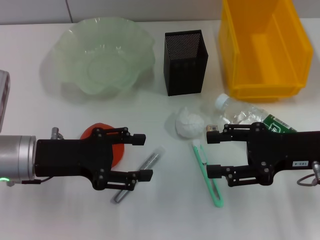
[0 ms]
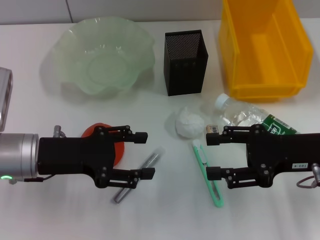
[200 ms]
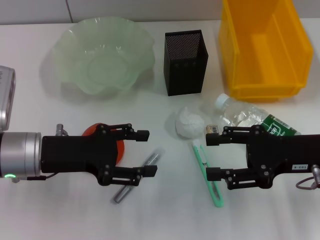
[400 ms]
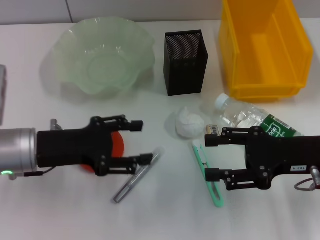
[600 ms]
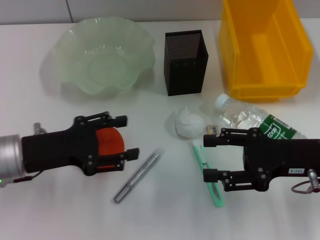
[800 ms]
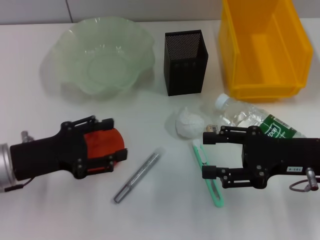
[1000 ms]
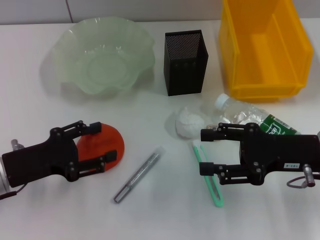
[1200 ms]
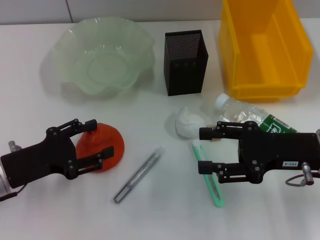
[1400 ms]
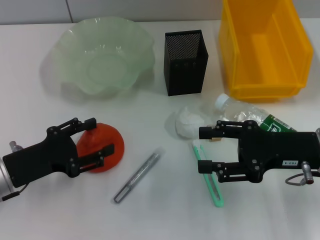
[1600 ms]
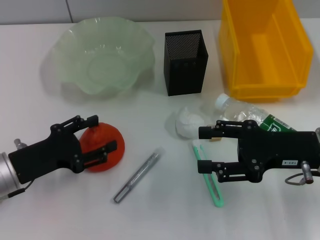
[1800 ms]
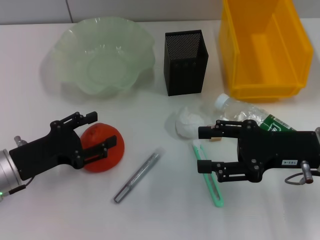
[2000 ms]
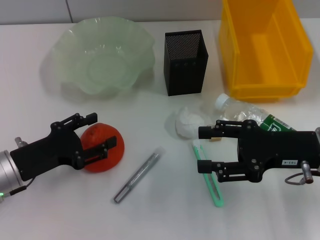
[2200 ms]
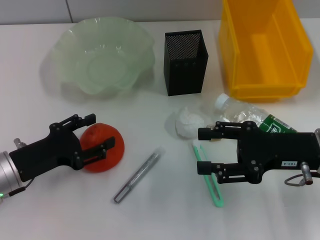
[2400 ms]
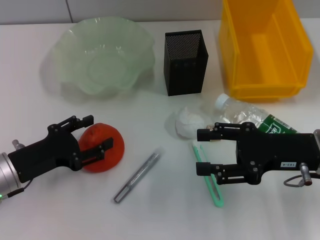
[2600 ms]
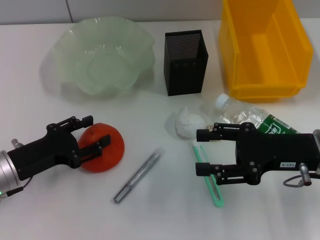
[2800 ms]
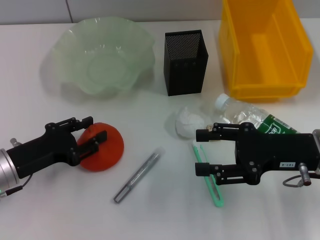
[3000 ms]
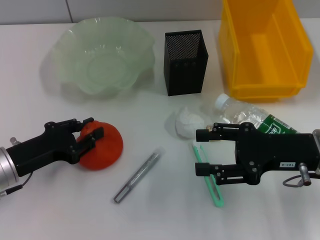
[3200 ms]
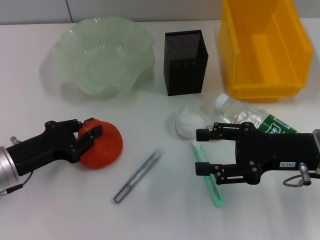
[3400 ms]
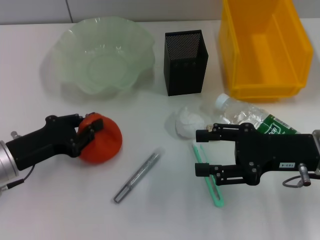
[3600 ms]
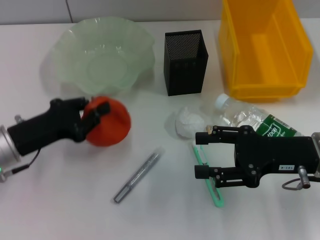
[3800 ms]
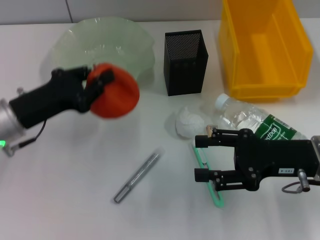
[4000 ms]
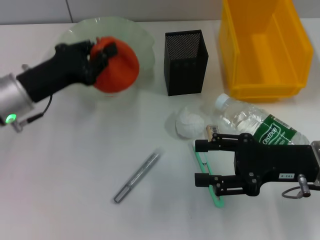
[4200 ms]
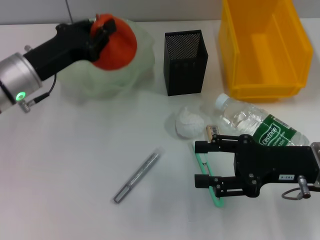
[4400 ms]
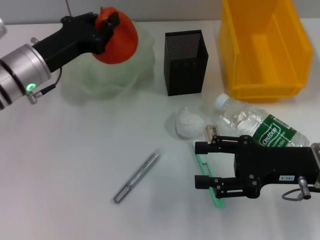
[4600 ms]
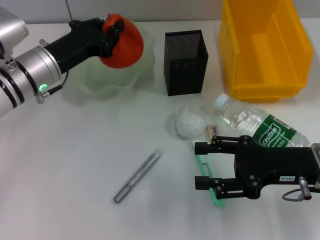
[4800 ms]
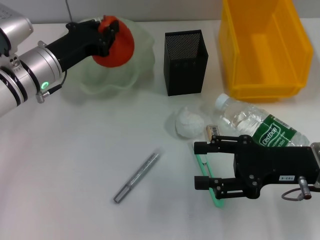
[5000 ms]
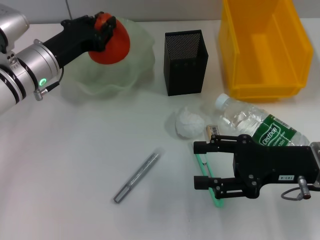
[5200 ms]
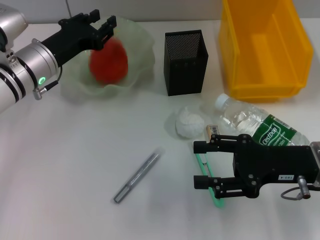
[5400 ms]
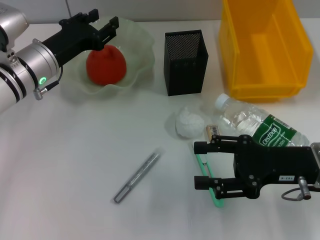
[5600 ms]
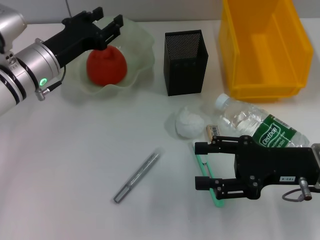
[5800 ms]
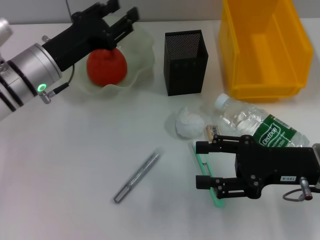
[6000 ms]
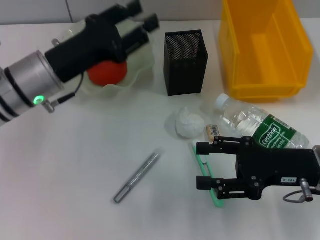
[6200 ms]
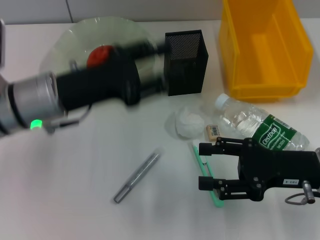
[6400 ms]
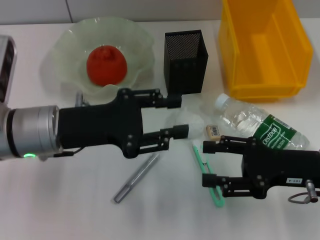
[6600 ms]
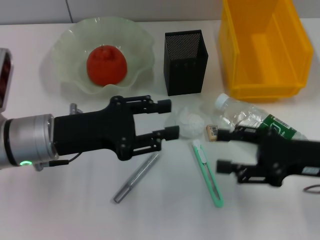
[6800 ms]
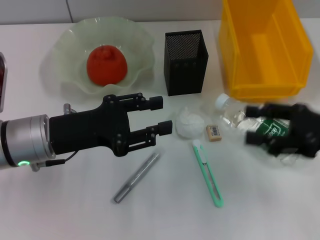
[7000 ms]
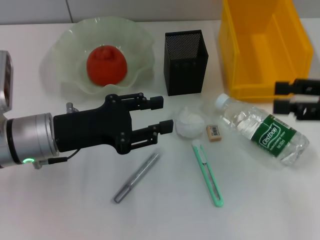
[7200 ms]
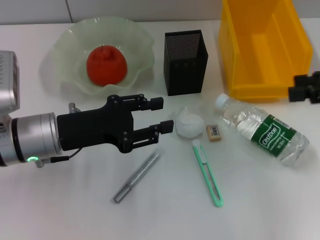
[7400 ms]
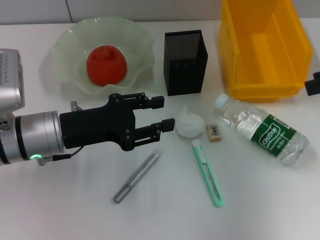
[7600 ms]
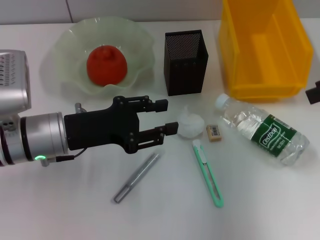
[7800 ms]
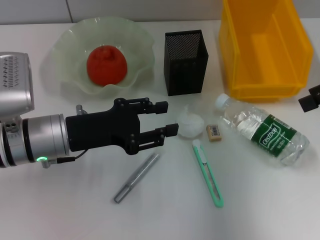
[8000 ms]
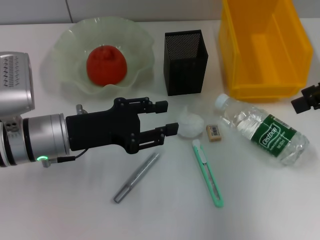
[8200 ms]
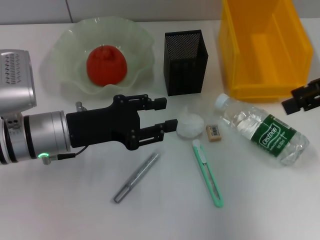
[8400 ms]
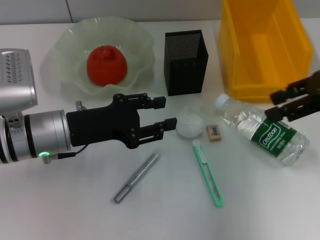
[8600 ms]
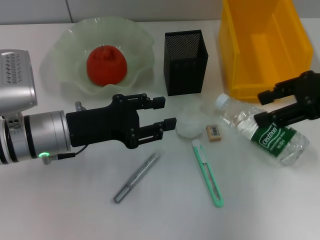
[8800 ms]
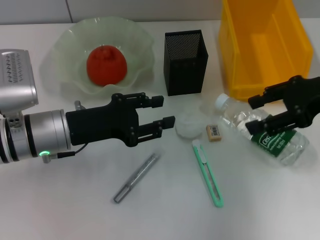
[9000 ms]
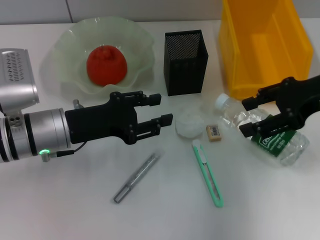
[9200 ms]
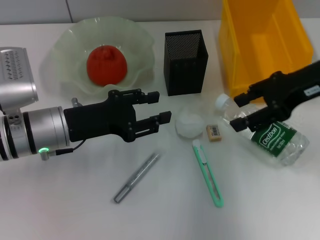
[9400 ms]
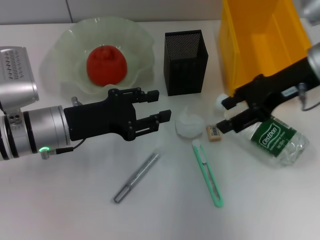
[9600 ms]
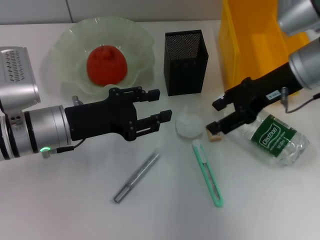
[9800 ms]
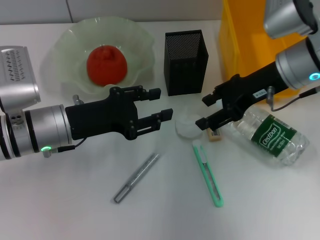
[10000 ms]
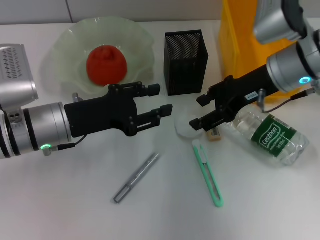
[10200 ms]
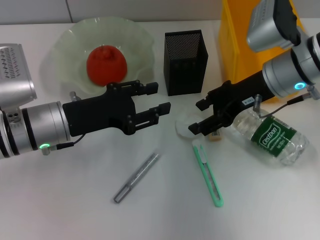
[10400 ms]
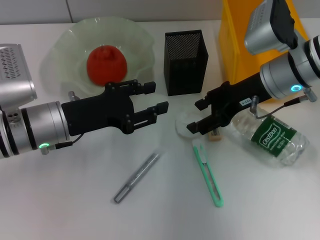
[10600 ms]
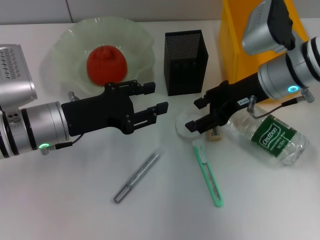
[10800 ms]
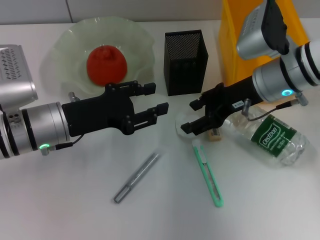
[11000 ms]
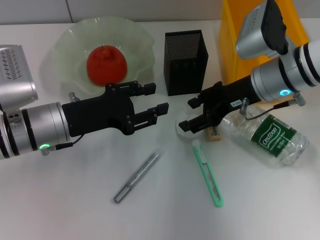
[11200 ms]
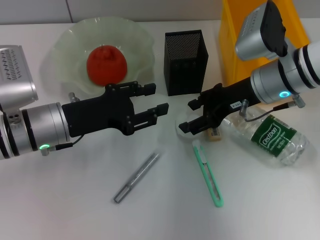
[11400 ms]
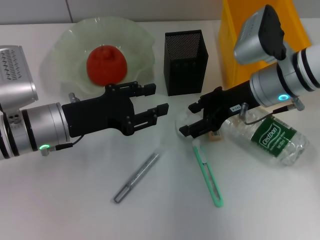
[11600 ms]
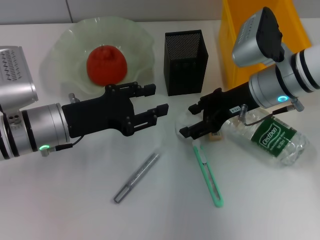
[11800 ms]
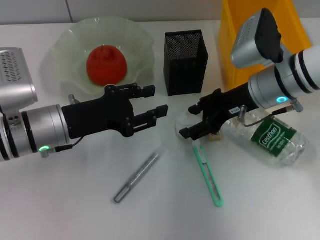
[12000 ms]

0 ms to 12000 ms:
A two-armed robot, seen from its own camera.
Step, 0 ms to 3400 ms: Grab the orange with the left hand.
Step, 3600 ms to 5600 ms: Place the orange into the fruit bowl with the left hand.
0 ms to 1600 ms: The left gripper moves about 5 cm.
1600 ms to 3000 ms: The grippers stay close to where they were, moving slightly.
3000 ms to 4400 ms: The left gripper is displaced forward and upward by about 10 cm, and closes.
4400 ms to 6000 ms: The left gripper opens.
6000 ms to 7600 ms: The left gripper heads backward, covering roughly 5 cm, while the right gripper moves upward and to the right, roughly 20 cm.
7600 ms to 9000 ms: The right gripper travels to the left and downward by roughly 10 cm.
9000 ms to 10400 ms: The right gripper moves to the left and downward, roughly 10 cm.
10400 ms to 12000 ms: The grippers make only small movements.

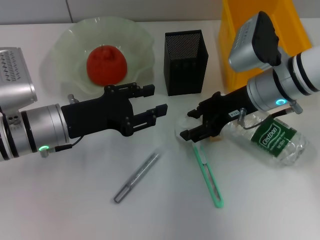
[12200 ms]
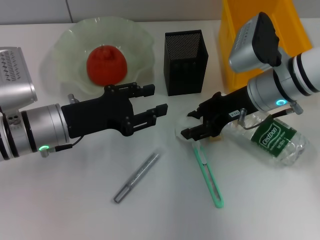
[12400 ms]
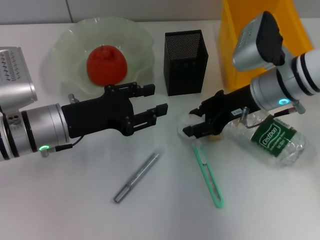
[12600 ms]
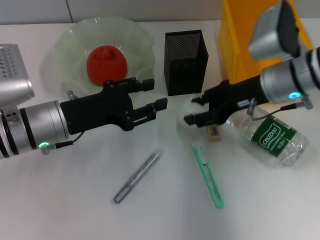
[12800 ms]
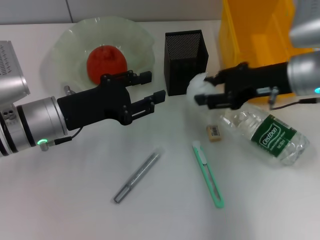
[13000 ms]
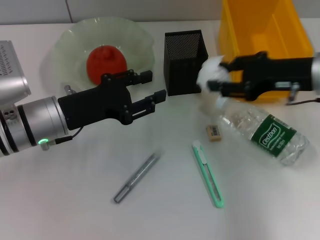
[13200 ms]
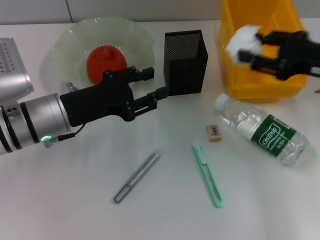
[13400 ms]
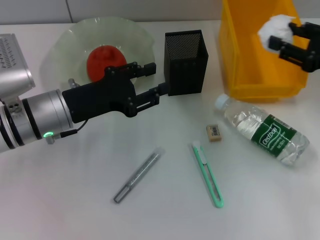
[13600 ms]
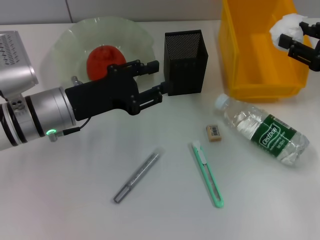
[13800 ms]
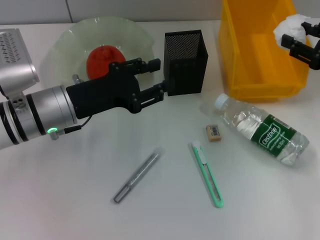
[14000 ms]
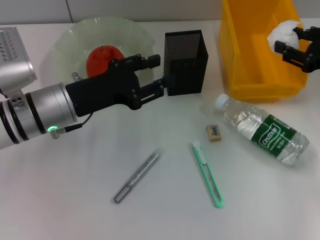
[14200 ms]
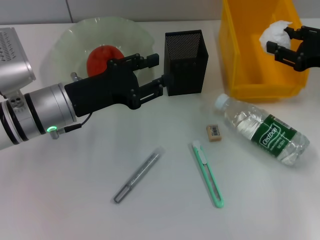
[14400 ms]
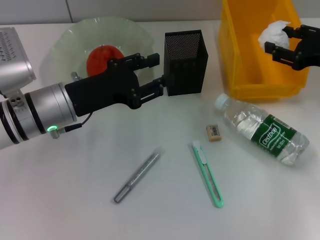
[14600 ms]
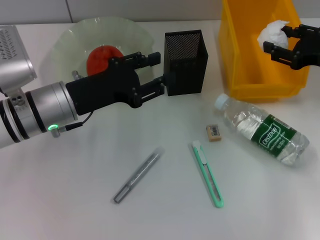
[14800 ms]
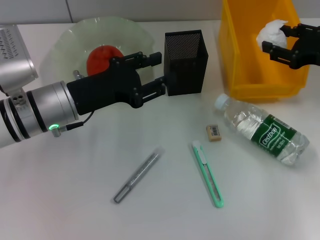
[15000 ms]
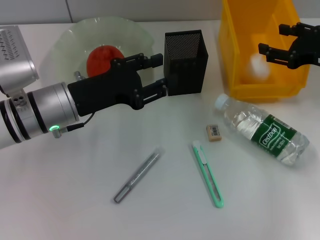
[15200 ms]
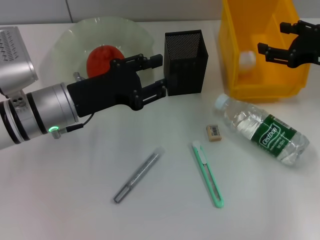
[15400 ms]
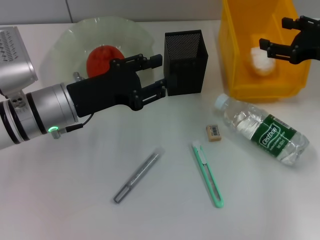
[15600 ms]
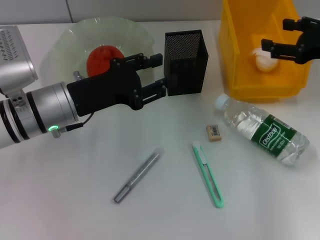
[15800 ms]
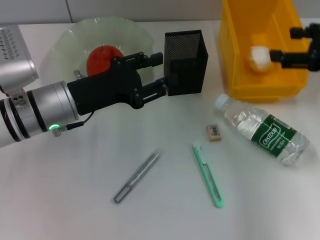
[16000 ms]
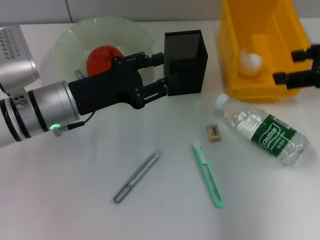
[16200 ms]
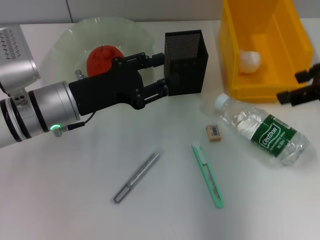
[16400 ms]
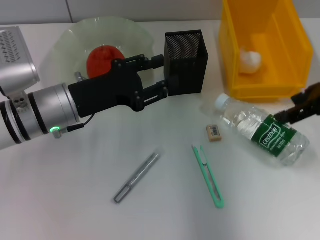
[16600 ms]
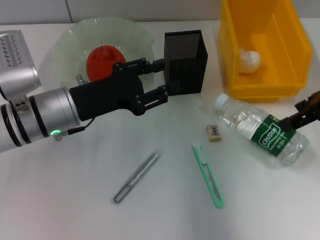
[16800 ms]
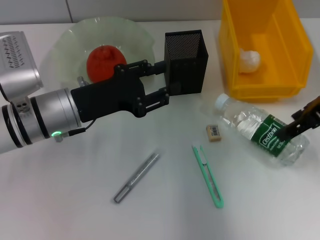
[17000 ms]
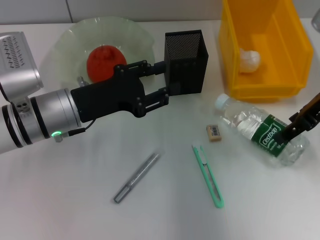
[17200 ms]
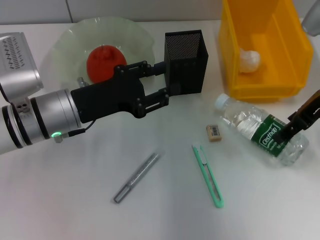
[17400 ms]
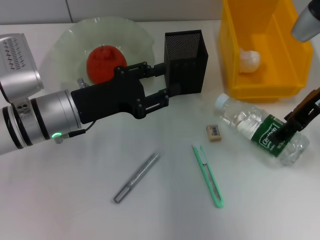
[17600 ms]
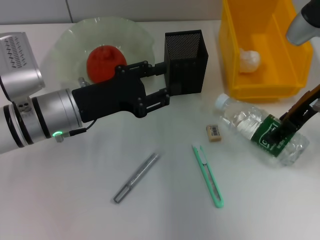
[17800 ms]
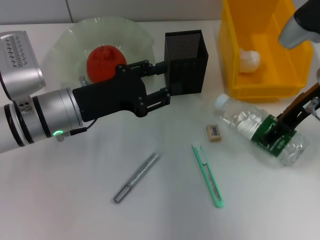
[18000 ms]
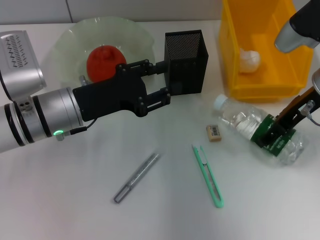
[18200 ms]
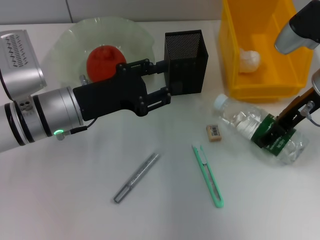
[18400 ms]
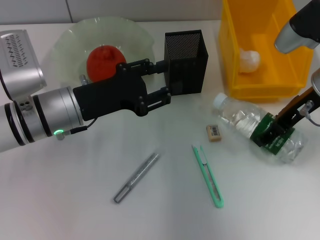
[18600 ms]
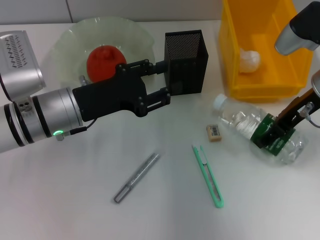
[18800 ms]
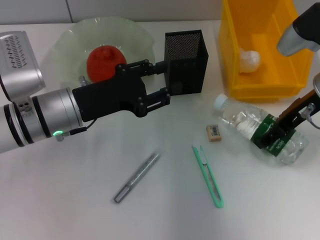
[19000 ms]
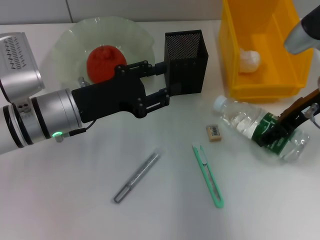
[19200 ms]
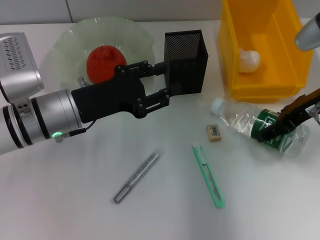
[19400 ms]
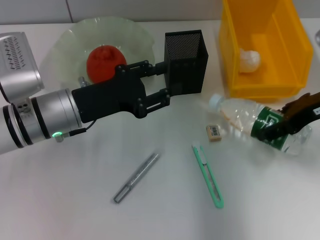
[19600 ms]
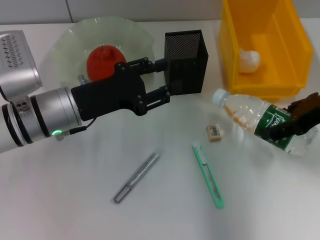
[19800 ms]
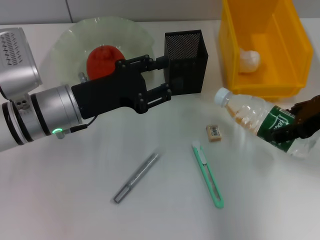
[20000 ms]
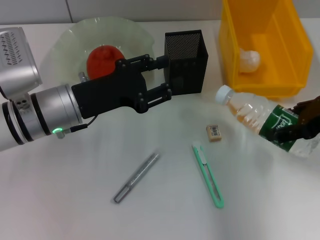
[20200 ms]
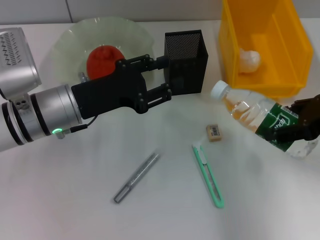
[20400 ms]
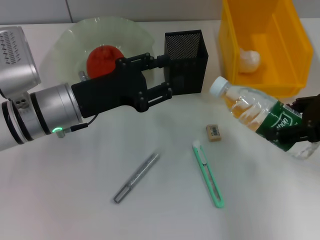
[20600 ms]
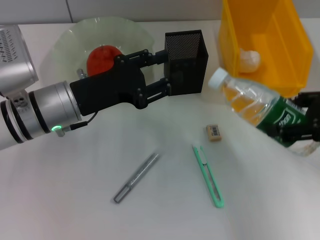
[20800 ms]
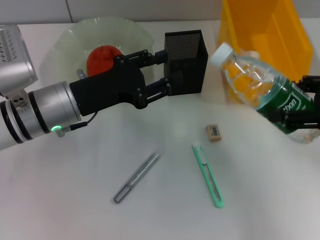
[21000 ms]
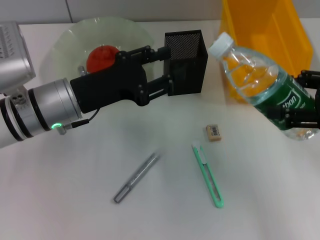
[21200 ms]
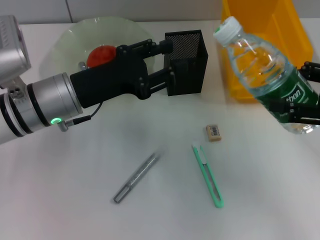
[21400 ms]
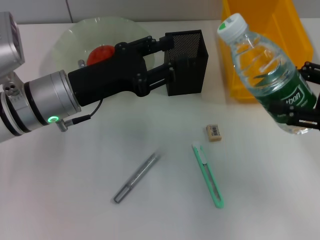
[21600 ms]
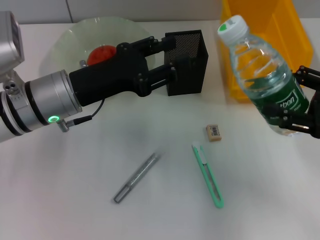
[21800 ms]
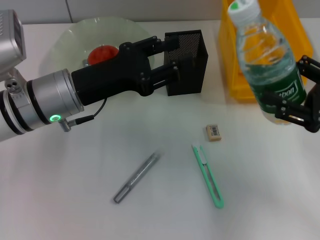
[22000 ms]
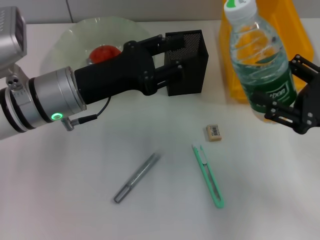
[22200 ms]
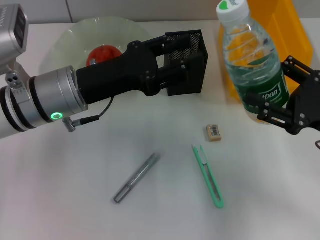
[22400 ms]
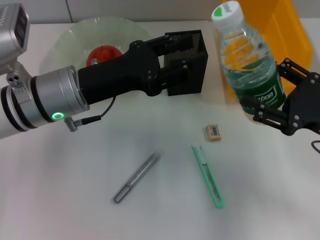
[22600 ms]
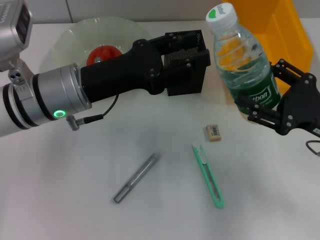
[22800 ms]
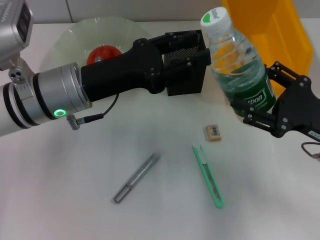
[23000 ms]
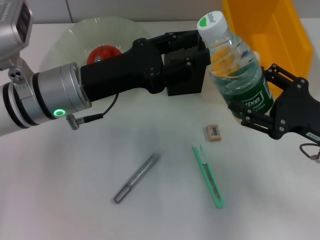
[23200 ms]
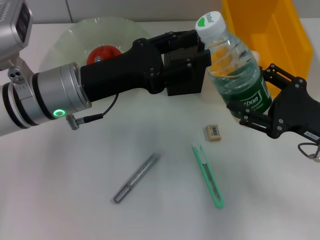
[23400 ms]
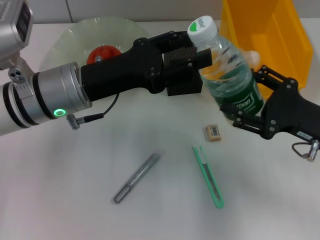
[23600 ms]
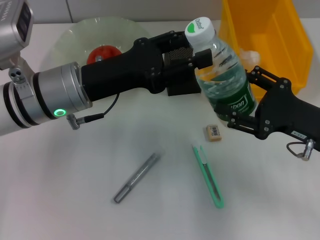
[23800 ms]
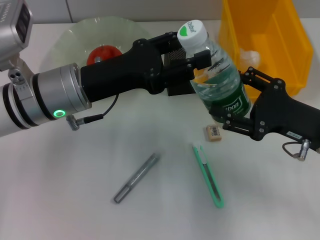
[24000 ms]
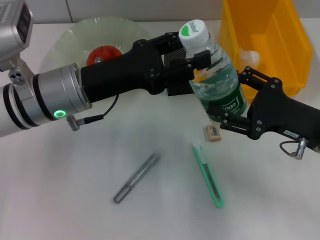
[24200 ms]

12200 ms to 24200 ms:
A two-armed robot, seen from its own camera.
Step, 12400 ms to 16800 ms: Place the paper ball into the trash can with the right hand.
Step, 17000 ms to 18800 ms: Grab the water bottle with the right hand.
12200 ms to 13800 ms: The right gripper is displaced to the right by roughly 15 cm.
13800 ms to 15200 ms: There are only small adjustments of the grippers.
15200 ms to 16600 ms: The right gripper goes some 10 cm upward.
16600 ms to 18200 ms: The right gripper is displaced downward by approximately 5 cm.
18200 ms to 19800 ms: The right gripper changes place by some 5 cm.
19800 ms to 21200 ms: The right gripper goes about 5 cm backward.
21200 ms to 22600 ms: The right gripper goes roughly 10 cm downward.
22600 ms to 24200 ms: The grippers stay close to where they were, moving slightly.
